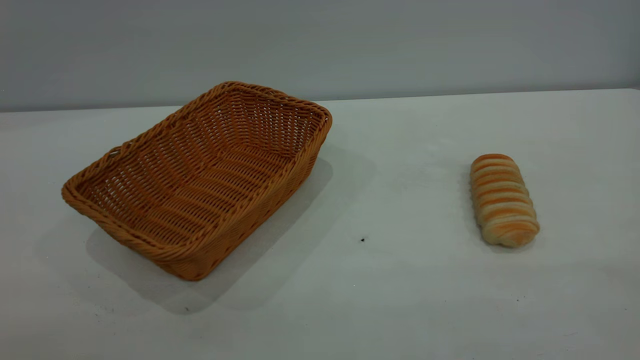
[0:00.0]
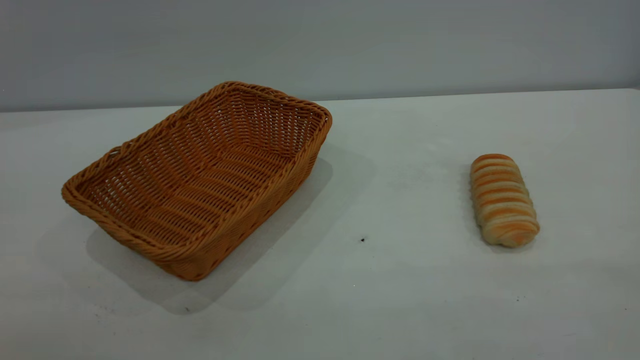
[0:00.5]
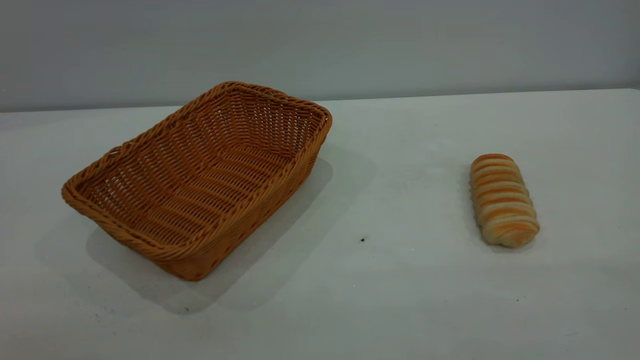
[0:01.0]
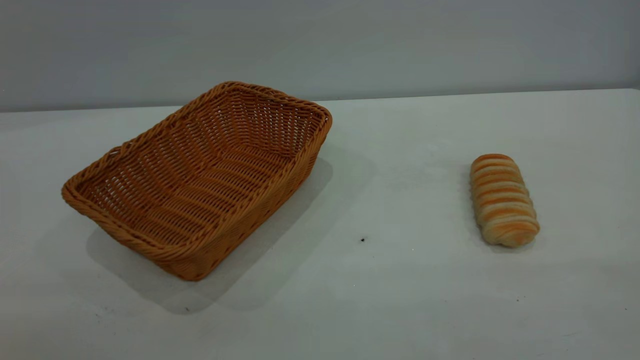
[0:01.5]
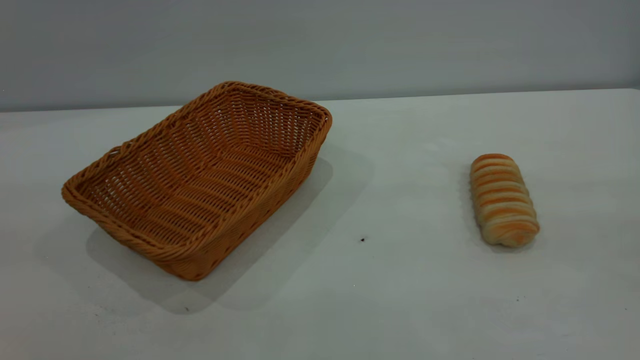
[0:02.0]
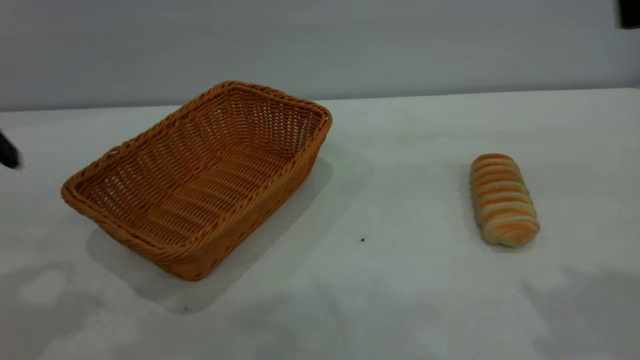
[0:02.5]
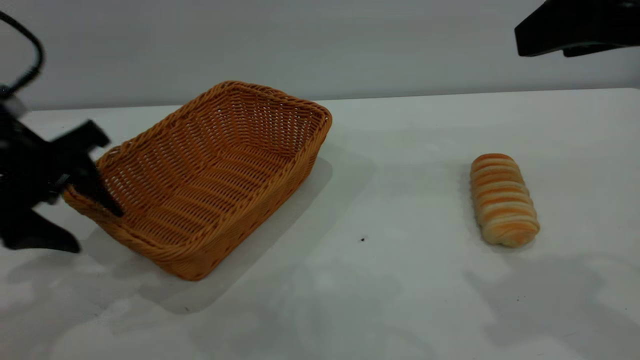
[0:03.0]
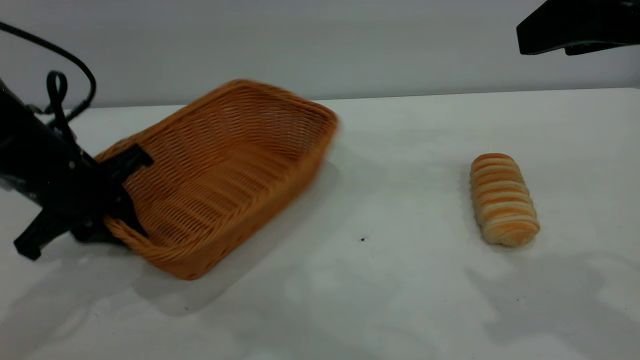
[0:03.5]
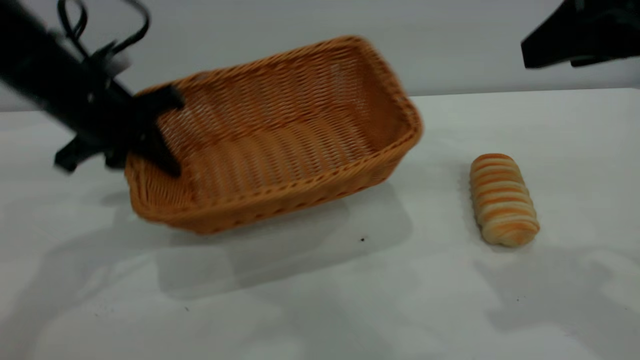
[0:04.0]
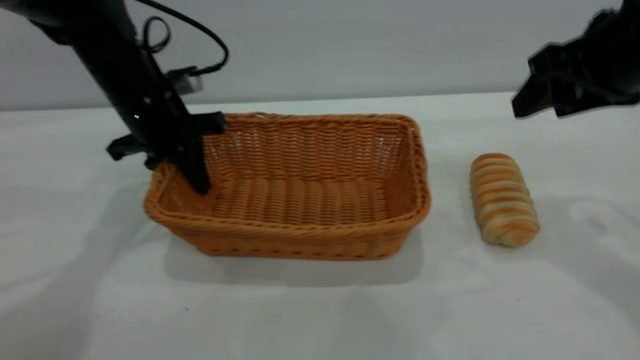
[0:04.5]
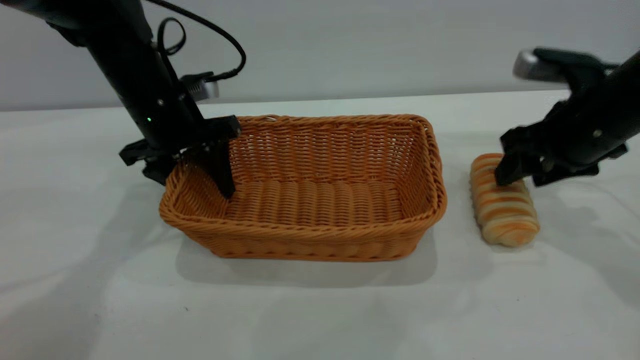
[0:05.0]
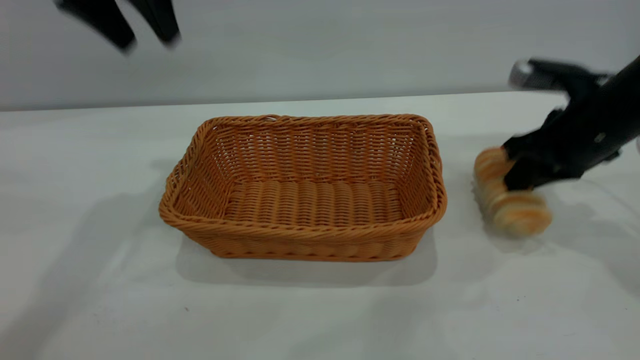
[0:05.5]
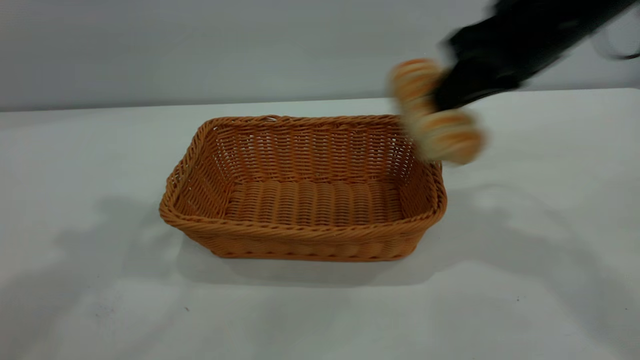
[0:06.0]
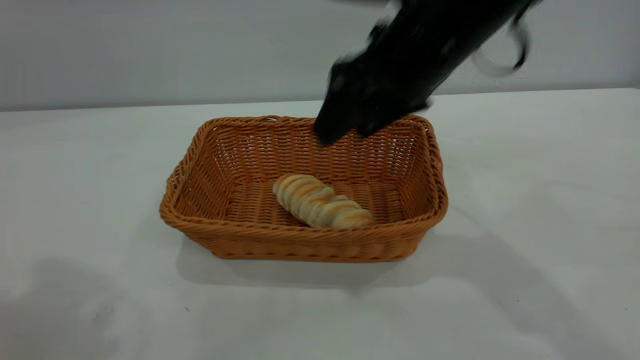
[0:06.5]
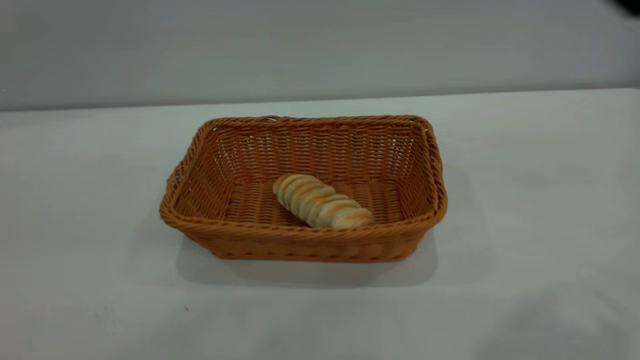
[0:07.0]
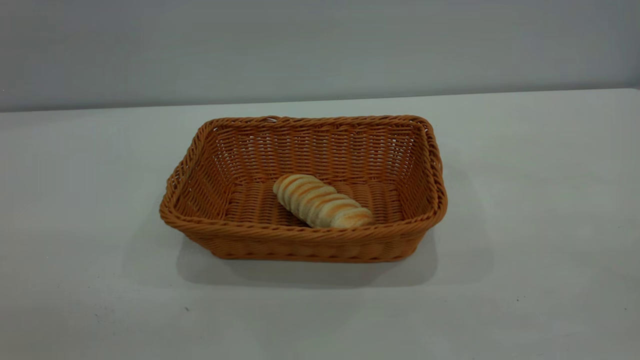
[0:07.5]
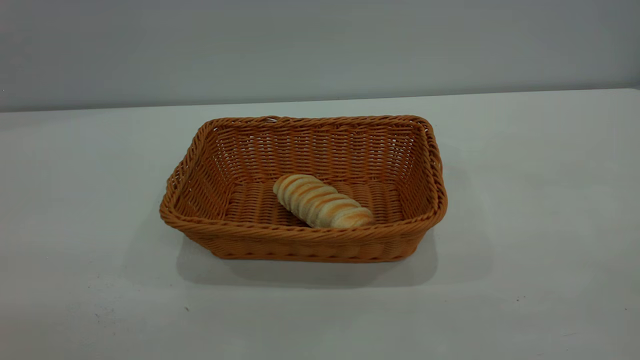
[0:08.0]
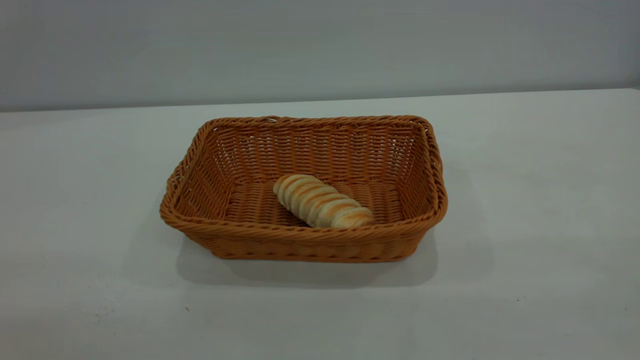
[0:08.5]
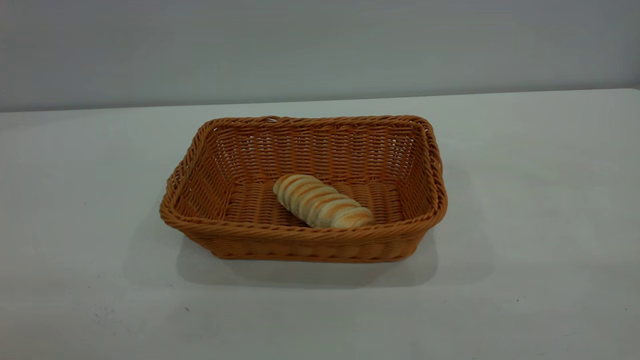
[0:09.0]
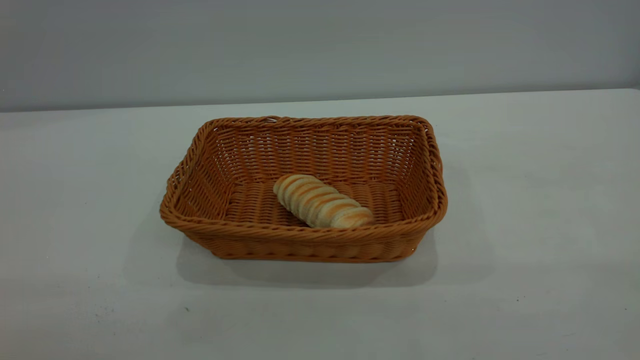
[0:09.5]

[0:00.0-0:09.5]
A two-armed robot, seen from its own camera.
Task of the whole recording: One hand grasps the yellow basket and places it in the middle of the table, while the other hand picks up the long bread and puts it into the yellow basket.
Step, 0:00.0 to 0:05.0: Move the basket to the center of view.
Step, 0:06.0 to 0:06.5: place the bread into the basket.
0:02.0 to 0:04.0: The left gripper goes about 35 cm forward and downward, and closes up; the right gripper shifts about 15 cm forward and downward.
0:04.0 to 0:05.5: The right gripper is displaced downward and forward by roughly 20 cm, and closes up. Meanwhile the left gripper goes roughly 15 cm upward, and opens.
0:05.5 to 0:07.5: The right gripper moves backward and upward, some 40 cm, and opens up. The left gripper heads backward, covering some 35 cm.

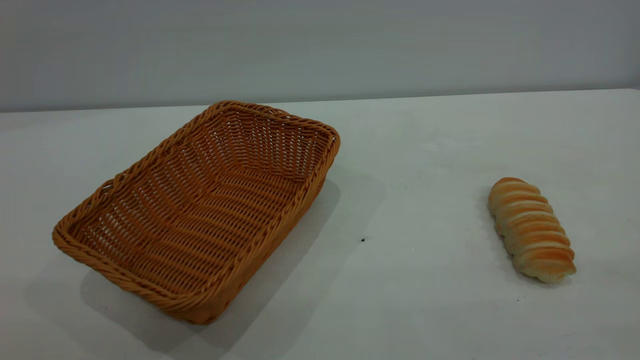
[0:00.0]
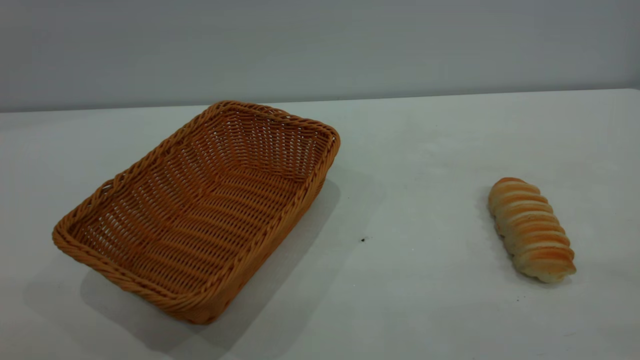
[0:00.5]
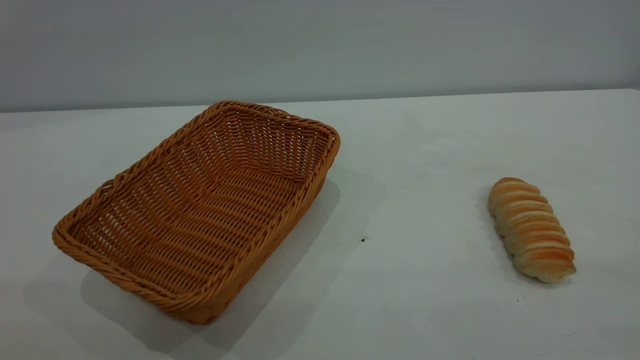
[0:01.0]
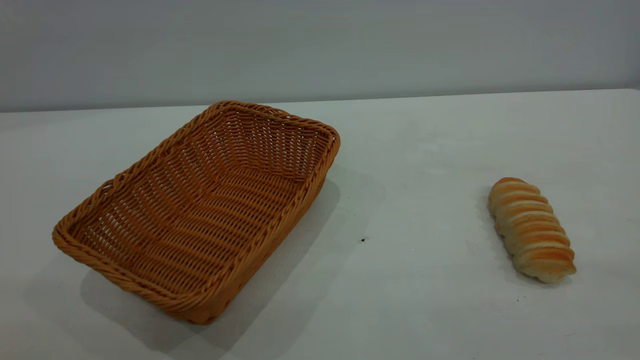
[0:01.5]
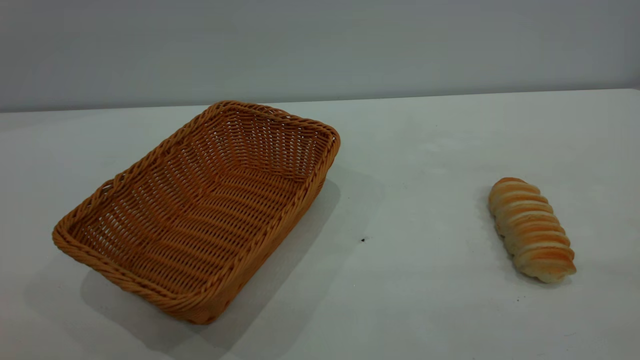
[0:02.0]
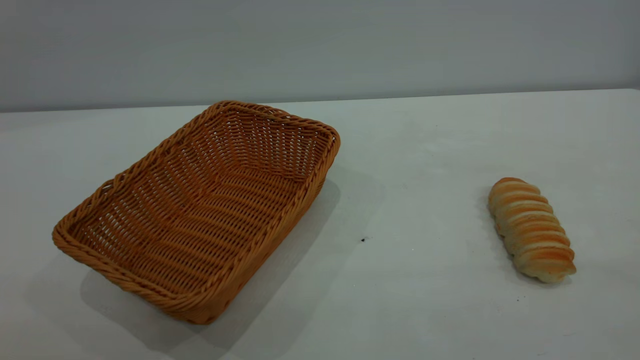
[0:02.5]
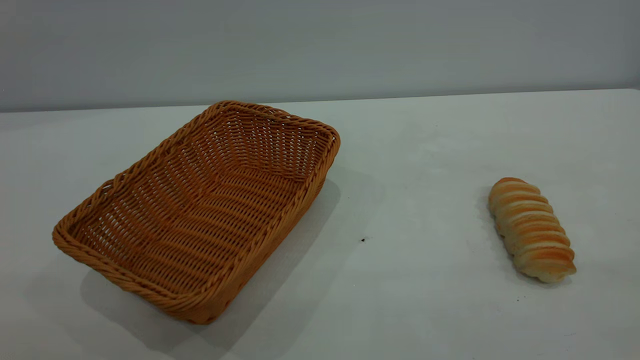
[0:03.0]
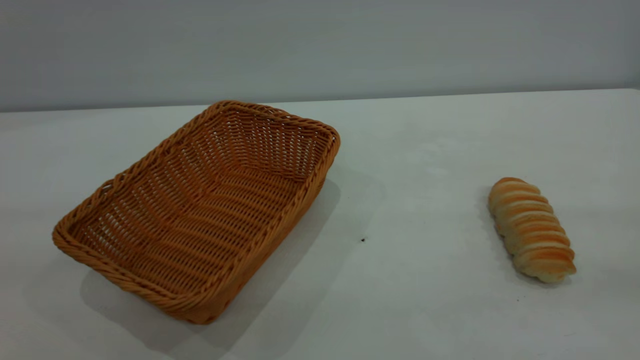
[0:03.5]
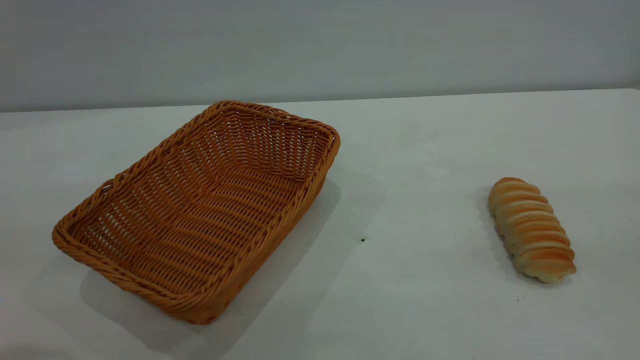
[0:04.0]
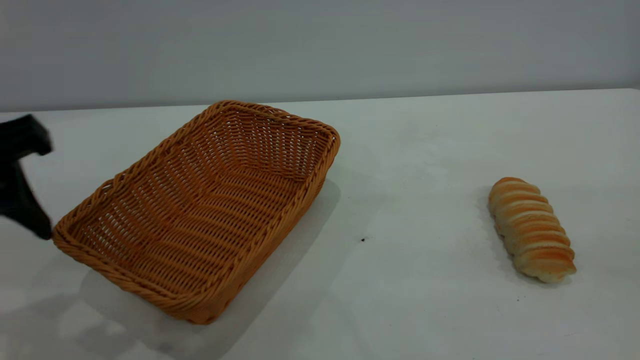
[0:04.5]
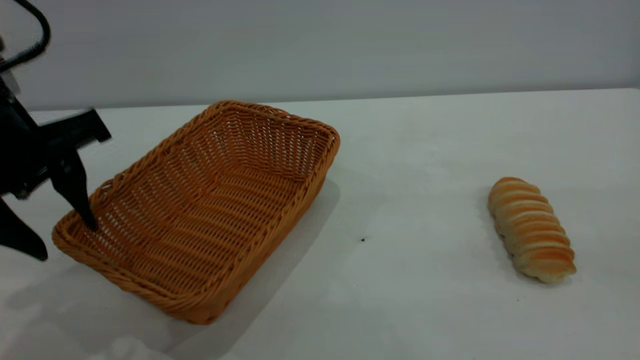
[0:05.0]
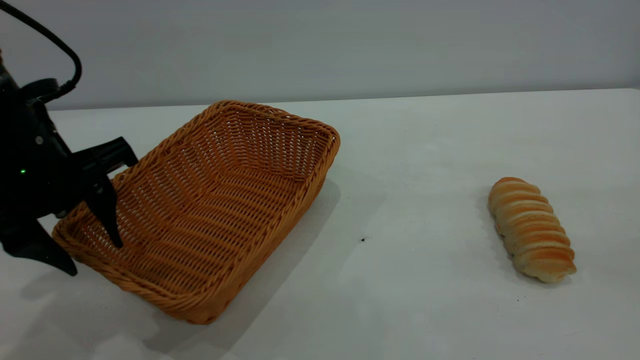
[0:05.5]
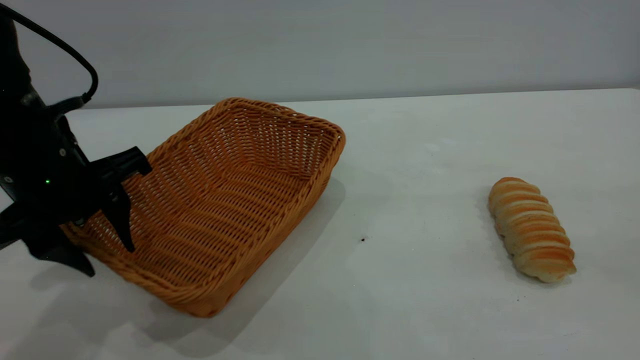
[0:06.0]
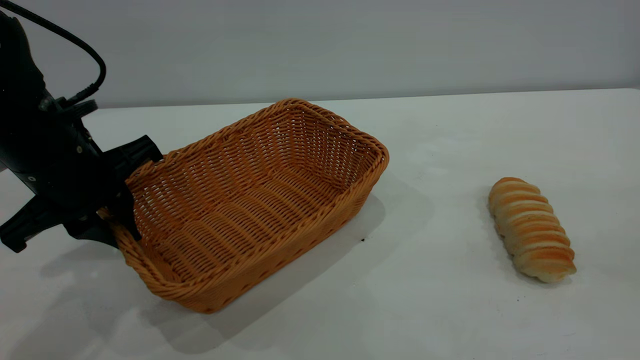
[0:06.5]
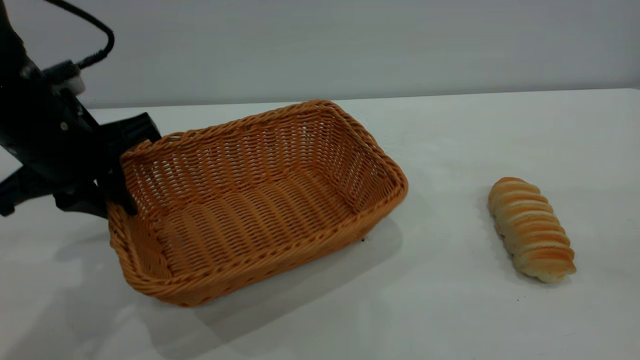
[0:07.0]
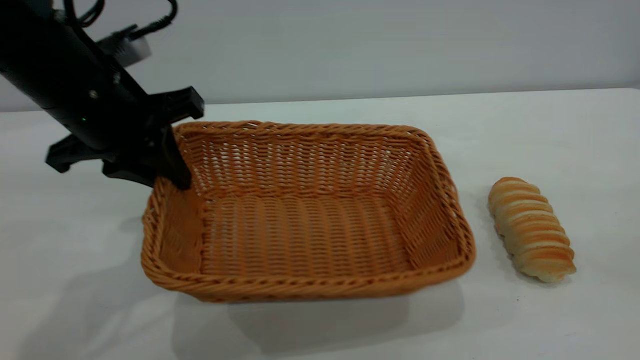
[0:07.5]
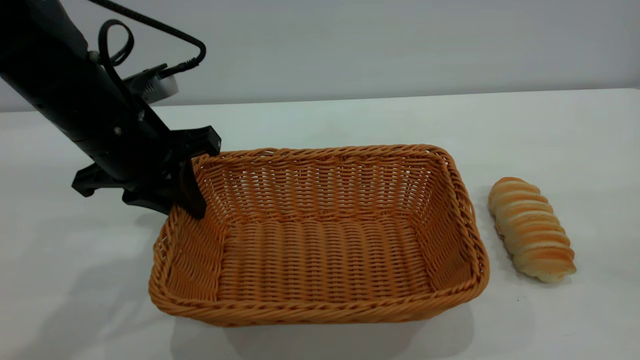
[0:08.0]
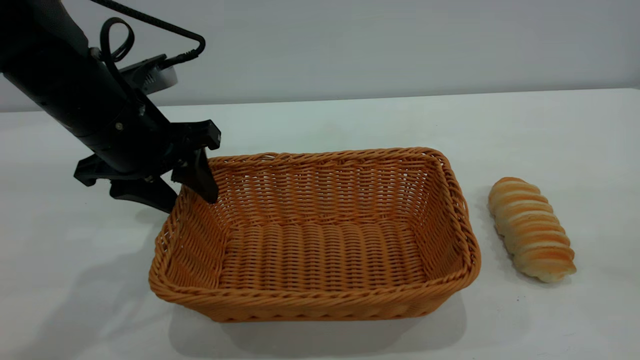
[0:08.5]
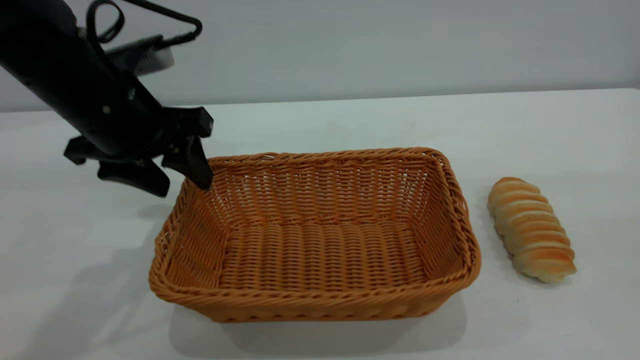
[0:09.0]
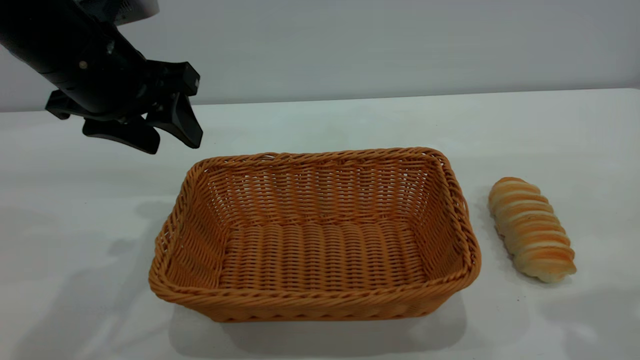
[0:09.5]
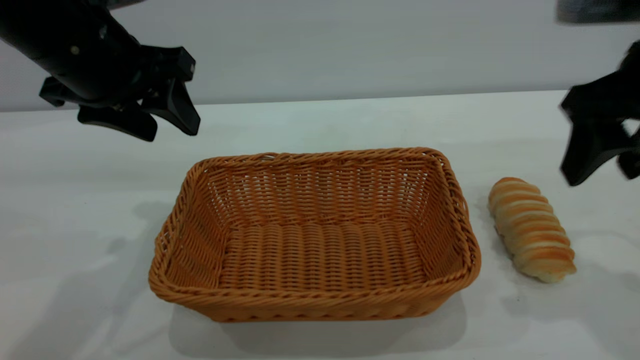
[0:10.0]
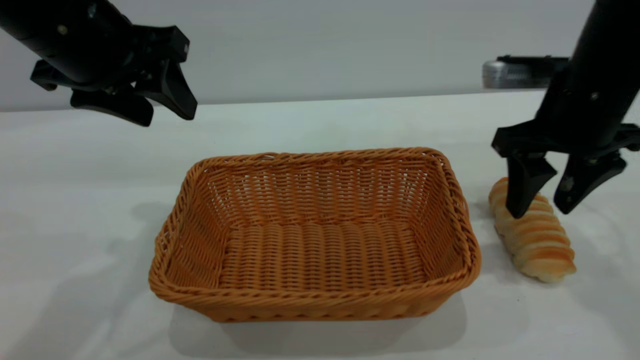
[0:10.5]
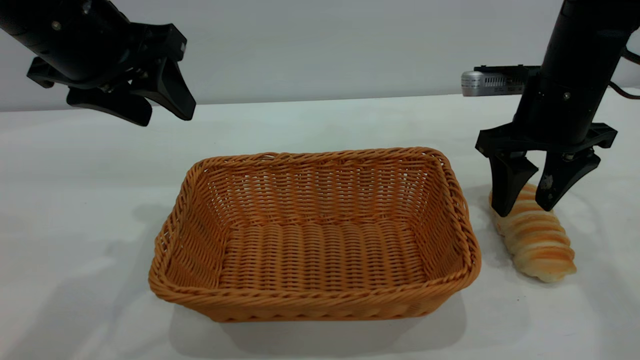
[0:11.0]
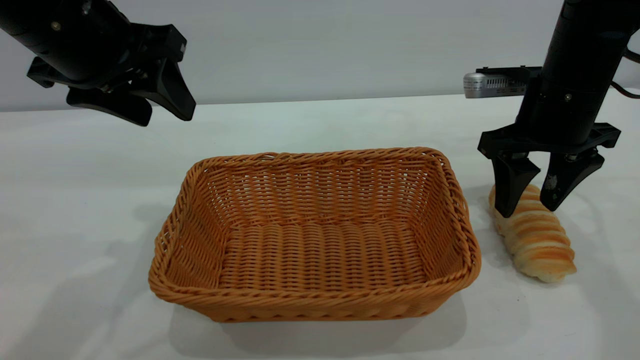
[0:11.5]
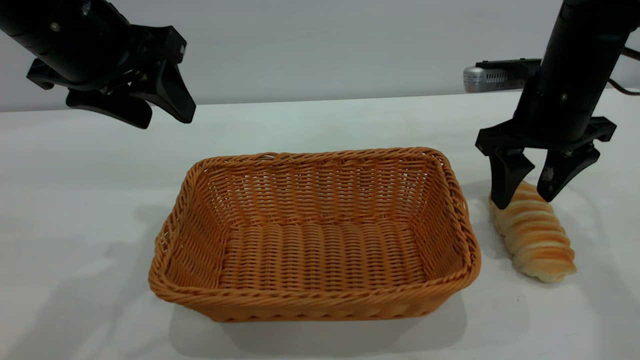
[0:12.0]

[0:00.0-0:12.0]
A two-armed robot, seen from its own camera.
Task of the whole recording: One hand grasps the yellow basket and places it in the middle of the table, while the other hand picks up the long bread and puts it into the yellow basket.
Step, 0:00.0 to 0:09.0: Move the basket to the center of view.
0:04.0 to 0:06.0: The left gripper moves forward and downward, approximately 20 cm.
0:06.0 to 0:08.0: The left gripper moves about 5 cm, and closes up.
0:08.0 to 0:10.0: The left gripper goes some 10 cm upward, and opens. The right gripper moves forward and downward, approximately 25 cm, and opens.
0:10.0 to 0:12.0: The right gripper heads forward and downward, covering about 15 cm.
